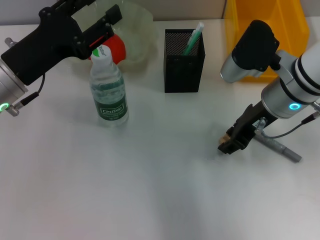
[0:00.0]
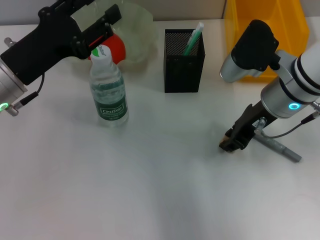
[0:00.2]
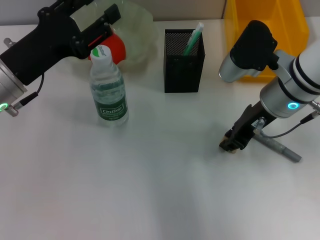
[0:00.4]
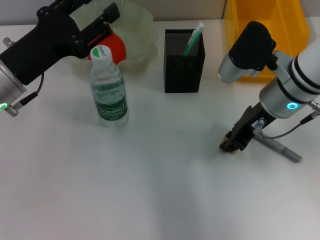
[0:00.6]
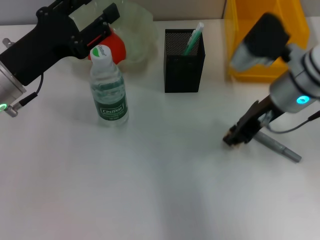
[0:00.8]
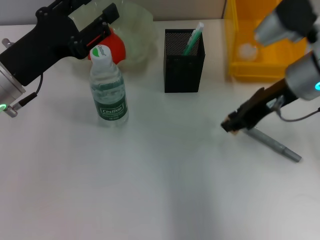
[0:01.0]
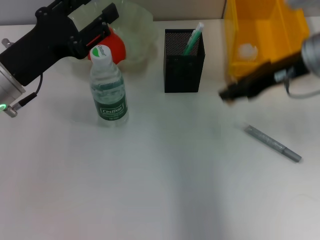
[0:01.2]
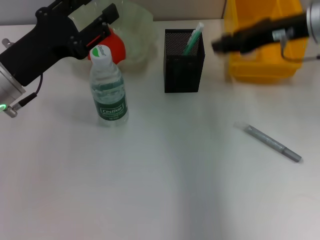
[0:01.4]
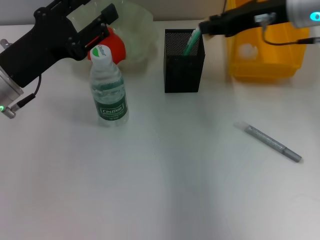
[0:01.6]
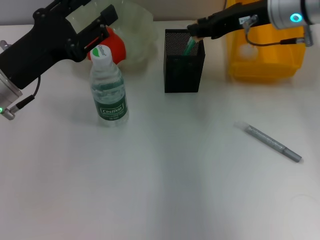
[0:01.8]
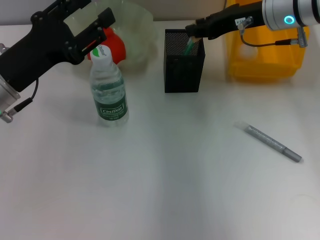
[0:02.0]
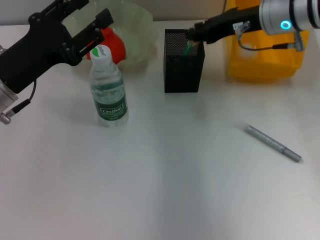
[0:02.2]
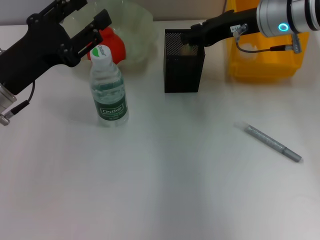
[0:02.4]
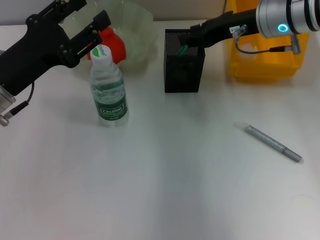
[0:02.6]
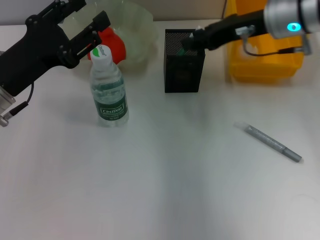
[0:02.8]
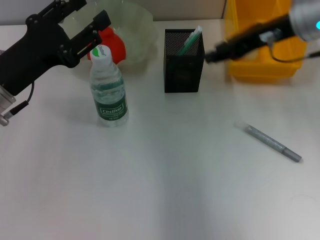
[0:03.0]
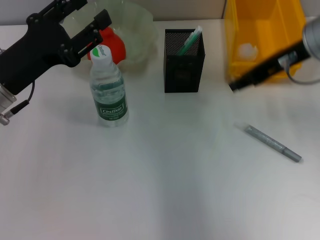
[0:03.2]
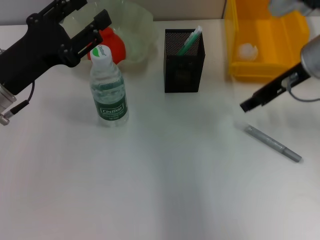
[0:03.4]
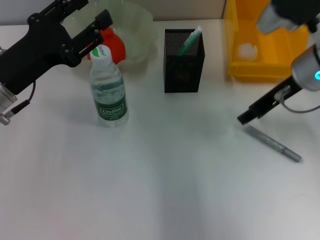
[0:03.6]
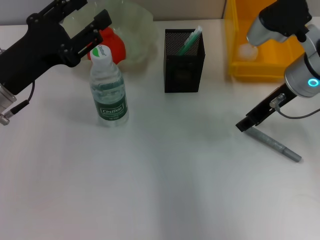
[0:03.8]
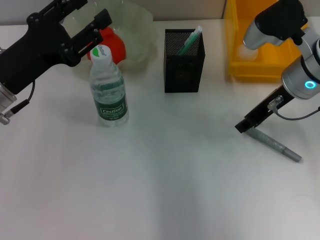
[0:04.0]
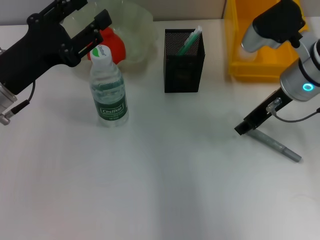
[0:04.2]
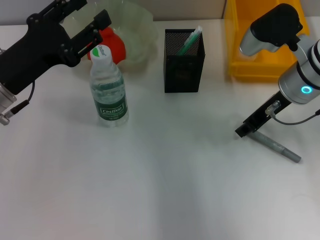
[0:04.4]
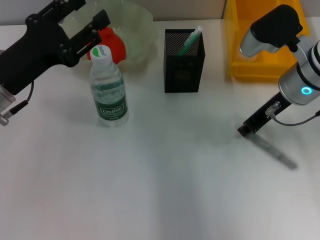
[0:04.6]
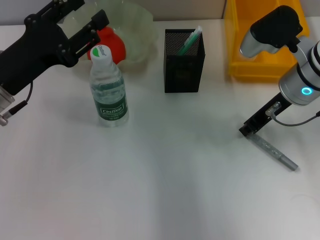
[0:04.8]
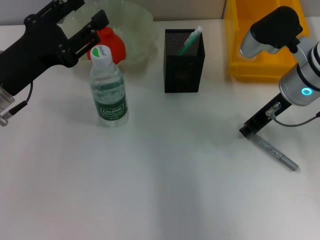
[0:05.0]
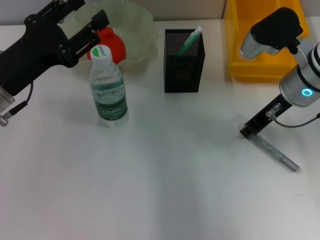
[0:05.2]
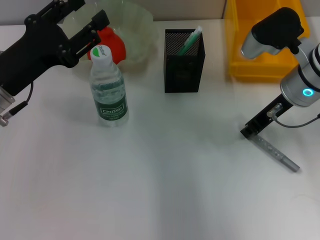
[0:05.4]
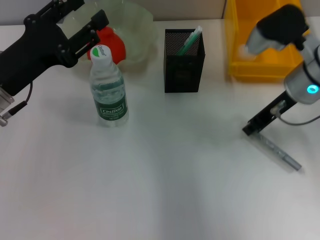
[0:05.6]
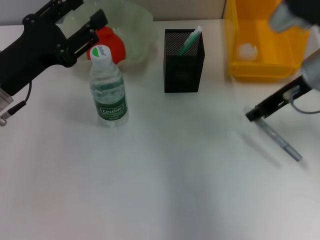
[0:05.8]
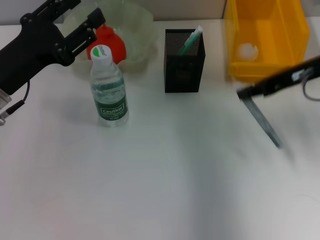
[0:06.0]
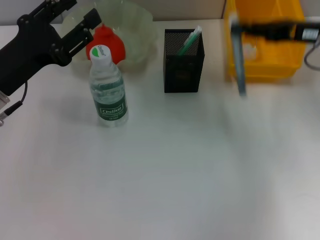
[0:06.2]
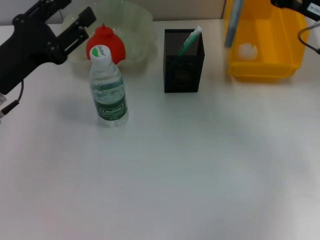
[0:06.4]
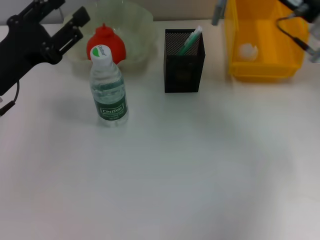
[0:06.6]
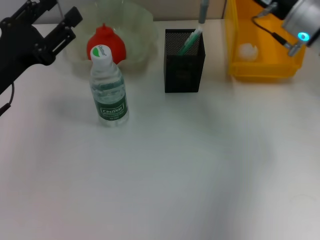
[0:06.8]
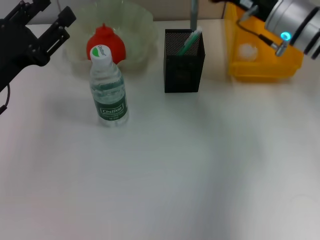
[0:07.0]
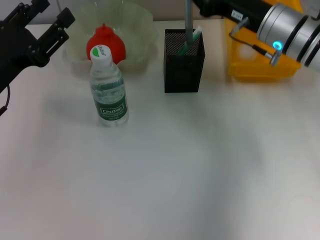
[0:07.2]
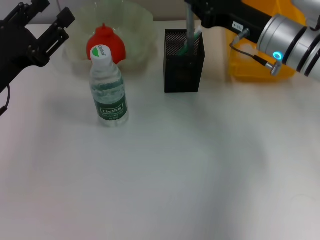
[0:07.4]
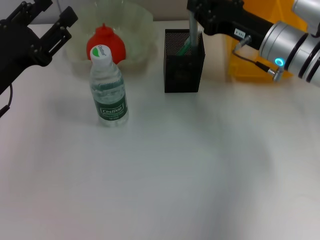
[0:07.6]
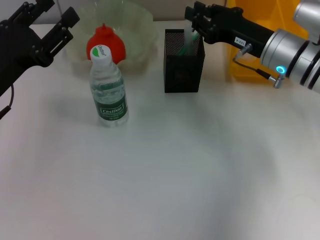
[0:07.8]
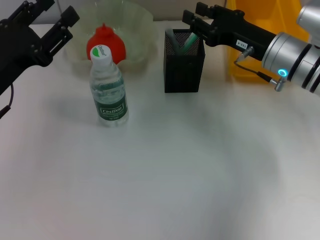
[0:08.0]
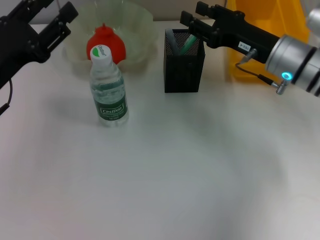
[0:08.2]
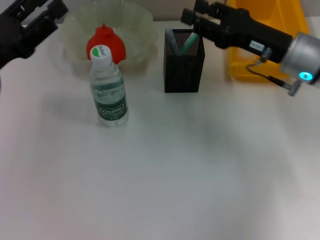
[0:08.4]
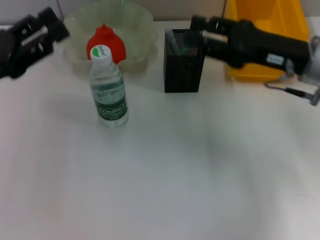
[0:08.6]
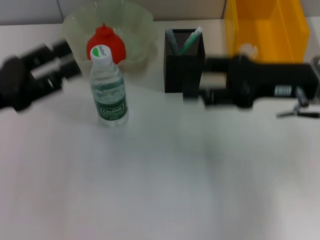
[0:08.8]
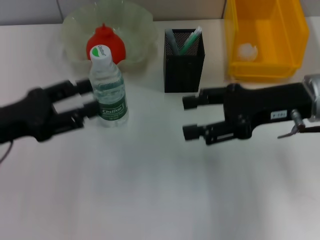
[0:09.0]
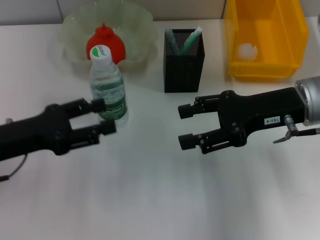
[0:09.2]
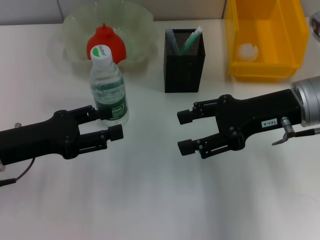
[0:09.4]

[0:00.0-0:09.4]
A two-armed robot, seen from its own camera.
Step, 0:00.4 to 0:02.6: Put the eraser into the pen holder with the right hand.
Step, 0:02.8 to 0:05.2: Grab the gray glue with the right hand.
Step, 0:05.4 to 0:07.6: Place the gray glue into the pen holder with the right hand.
0:00.0 to 0:01.6: The right gripper shifts some 10 cm upward and forward.
0:03.2 to 0:04.8: The right gripper shifts approximately 5 cm downward, and closes.
0:04.8 to 0:06.2: The right gripper travels to the right by some 10 cm.
0:06.2 to 0:07.8: The right gripper moves to the left and downward, approximately 10 cm.
0:07.8 to 0:09.4: The right gripper goes approximately 5 cm backward, and opens up.

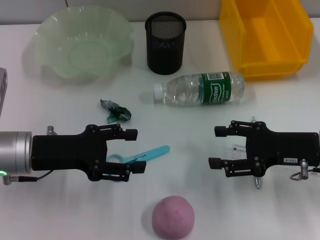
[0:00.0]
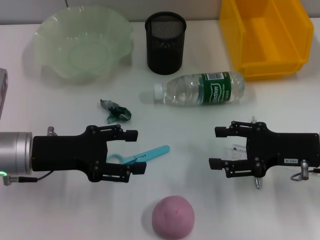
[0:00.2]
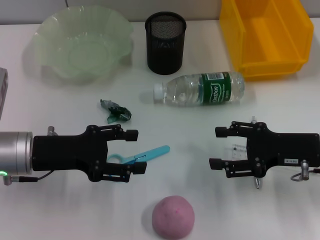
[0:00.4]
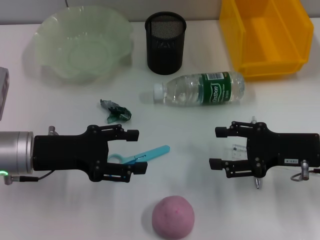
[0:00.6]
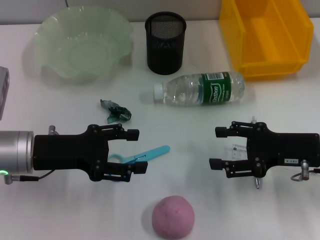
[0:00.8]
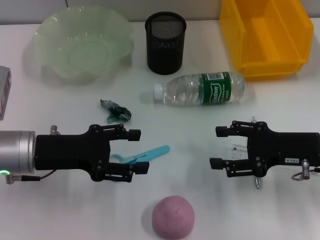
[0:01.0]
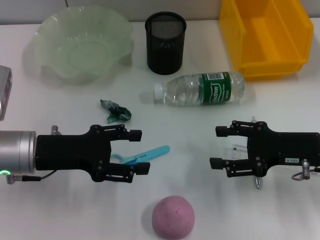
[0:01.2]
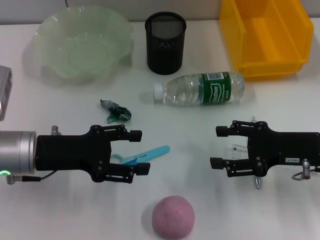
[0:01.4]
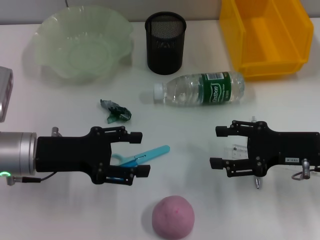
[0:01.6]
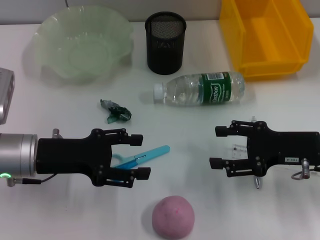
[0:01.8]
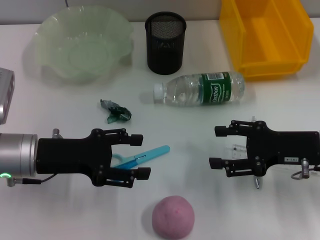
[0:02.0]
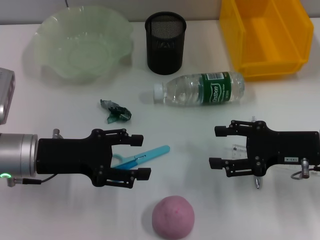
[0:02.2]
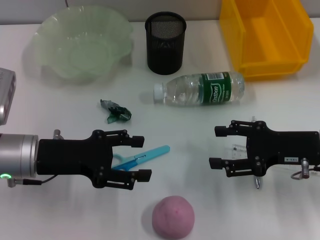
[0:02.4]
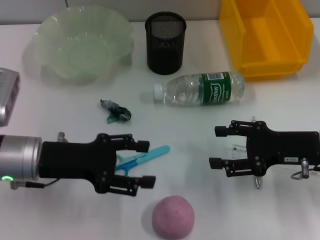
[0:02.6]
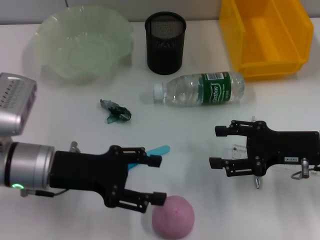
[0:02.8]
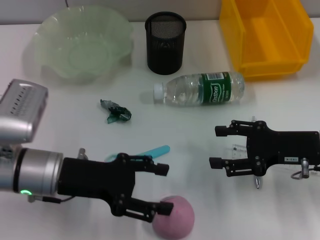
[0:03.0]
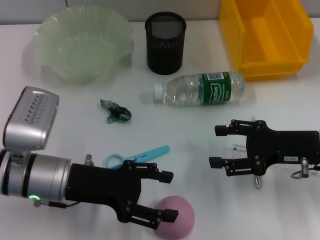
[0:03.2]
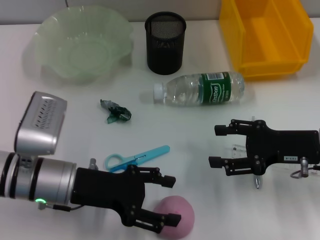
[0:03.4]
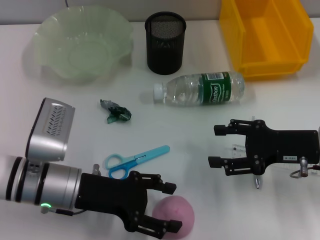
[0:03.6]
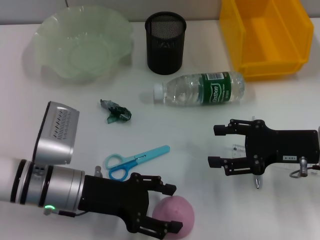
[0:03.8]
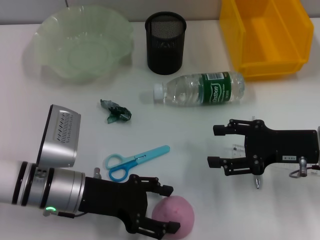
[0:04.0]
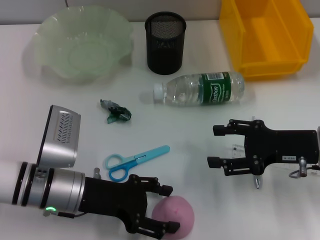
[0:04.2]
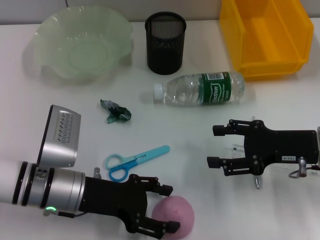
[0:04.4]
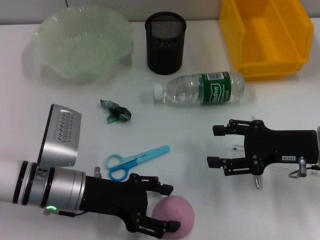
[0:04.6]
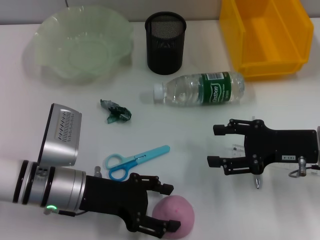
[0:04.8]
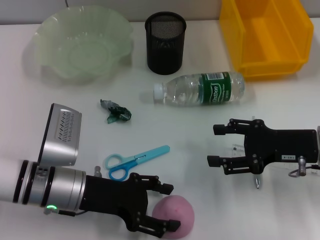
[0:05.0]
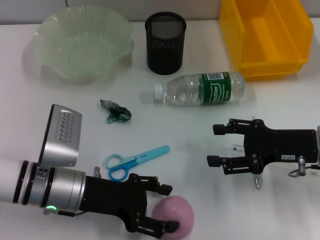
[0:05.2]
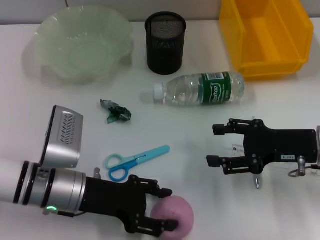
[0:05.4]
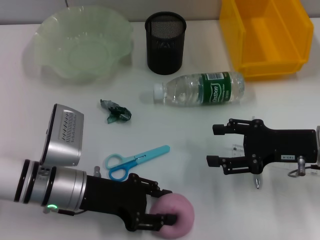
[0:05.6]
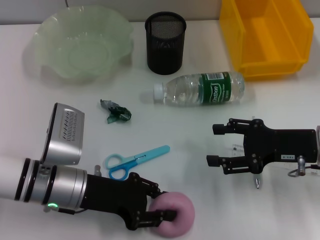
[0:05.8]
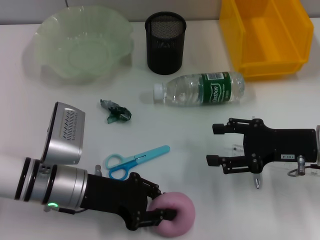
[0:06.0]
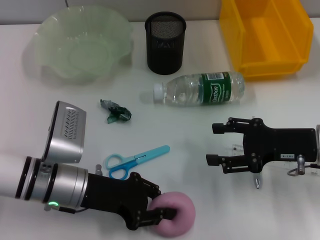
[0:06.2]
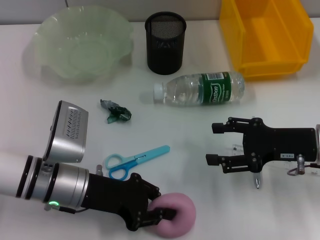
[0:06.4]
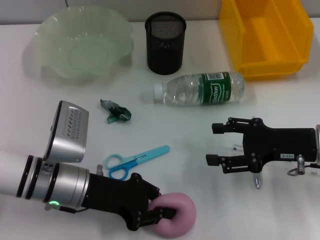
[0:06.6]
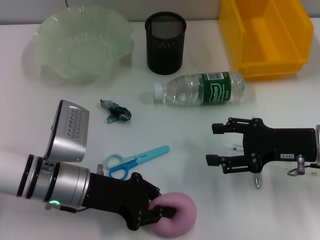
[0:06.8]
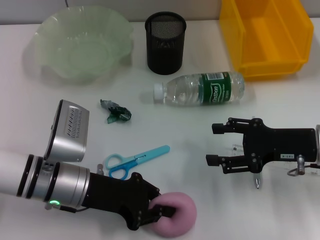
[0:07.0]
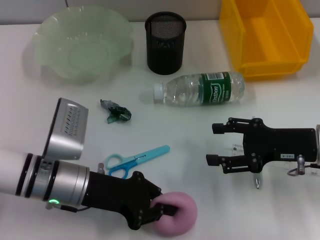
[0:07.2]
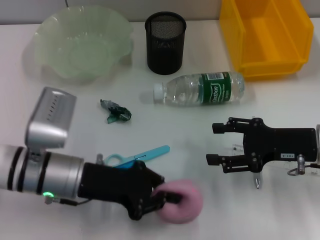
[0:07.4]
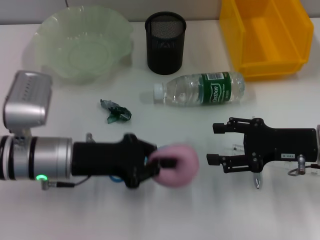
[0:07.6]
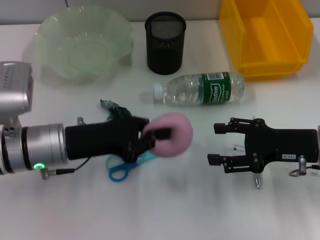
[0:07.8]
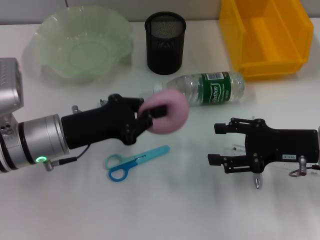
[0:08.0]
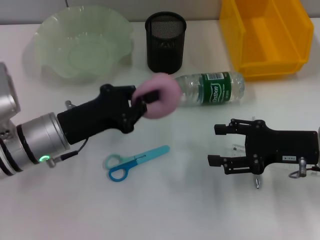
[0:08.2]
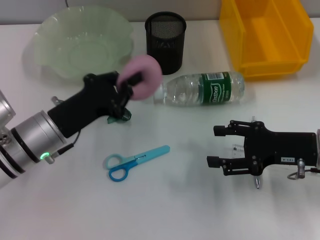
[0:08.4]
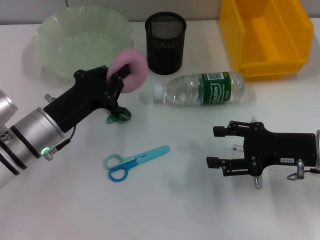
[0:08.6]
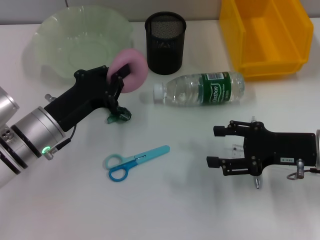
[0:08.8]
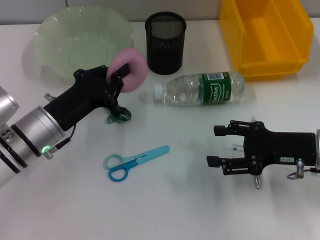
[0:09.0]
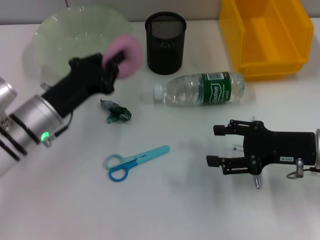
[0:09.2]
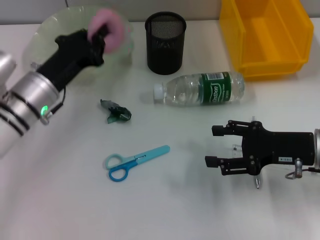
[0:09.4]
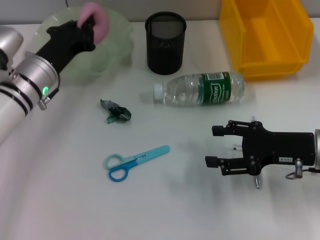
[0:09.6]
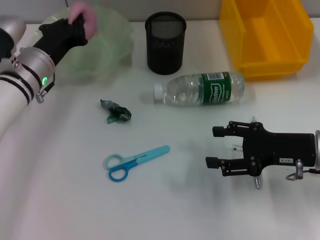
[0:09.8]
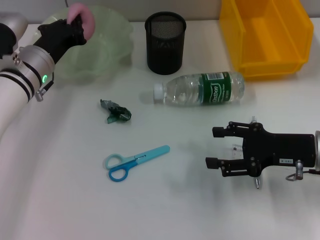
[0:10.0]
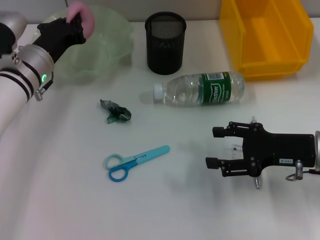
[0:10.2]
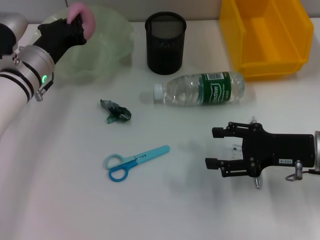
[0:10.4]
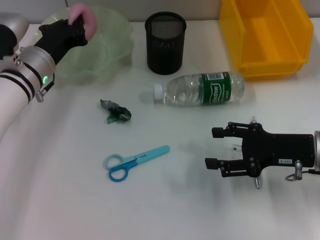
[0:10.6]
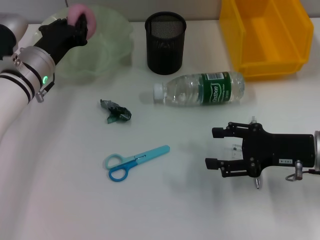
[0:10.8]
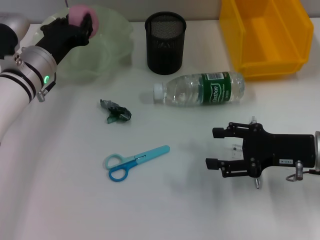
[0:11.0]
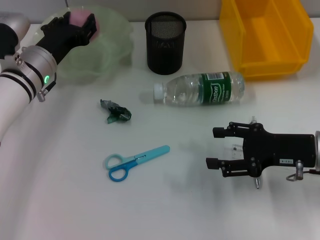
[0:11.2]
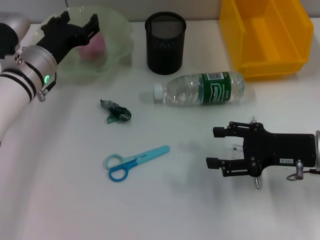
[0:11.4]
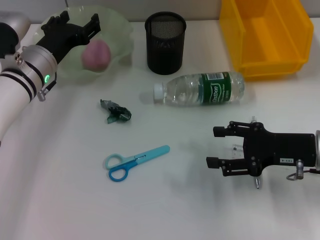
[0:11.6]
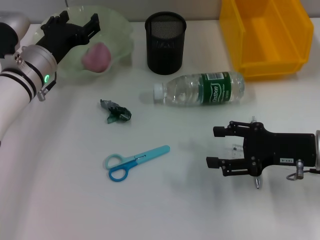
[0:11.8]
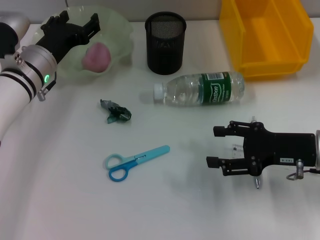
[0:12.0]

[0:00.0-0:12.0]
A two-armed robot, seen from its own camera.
Step, 0:00.0 to 0:06.4: Grab the peach with the left hand.
Step, 0:06.6 to 0:11.6: Place the peach into the fruit bowl with the left hand.
0:00.0 to 0:01.6: Neither gripper changes place.
0:01.6 to 0:03.0: The grippers move only a little.
0:03.0 to 0:04.4: The grippers stay close to where they were, moving slightly.
0:04.4 to 0:06.0: The left gripper closes up.
0:06.0 to 0:07.6: The left gripper closes its fingers.
0:09.0 to 0:10.4: The left gripper travels forward by approximately 10 cm.
0:10.4 to 0:12.0: The left gripper opens.

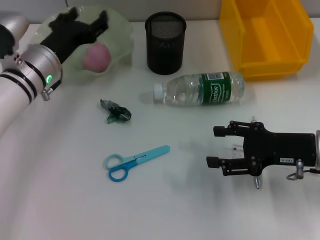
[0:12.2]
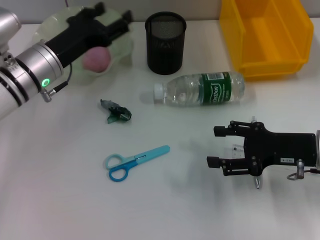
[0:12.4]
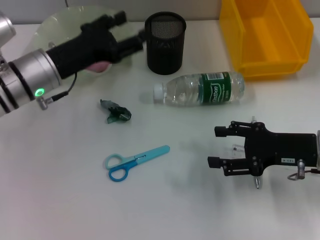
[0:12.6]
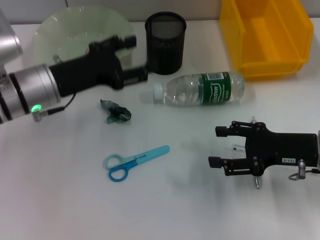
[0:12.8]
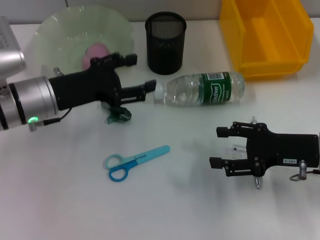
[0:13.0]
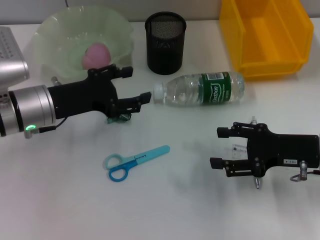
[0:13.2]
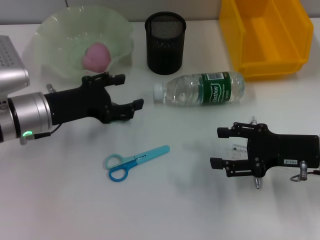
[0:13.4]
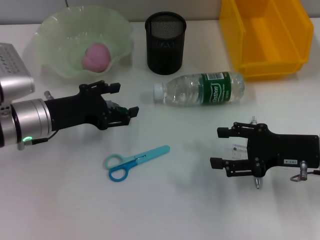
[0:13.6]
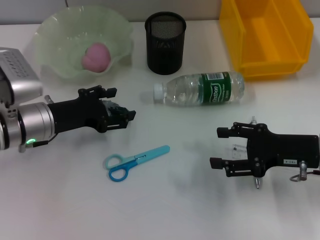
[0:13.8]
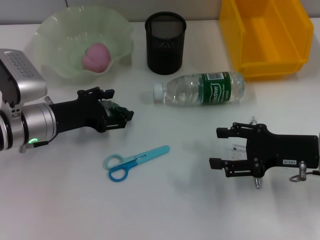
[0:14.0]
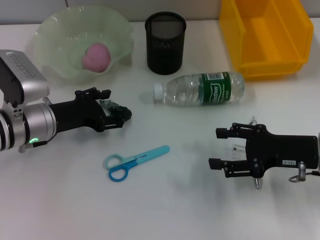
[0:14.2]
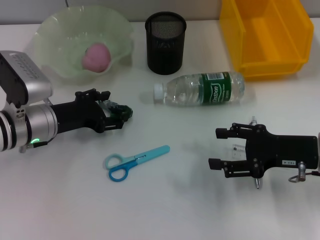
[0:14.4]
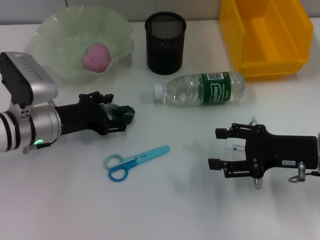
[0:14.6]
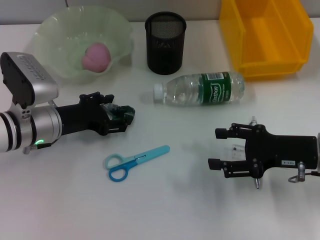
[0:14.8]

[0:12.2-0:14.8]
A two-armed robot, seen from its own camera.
0:12.2 to 0:13.4: The left gripper travels backward by about 5 cm.
0:13.4 to 0:14.8: The grippers move only a little.
